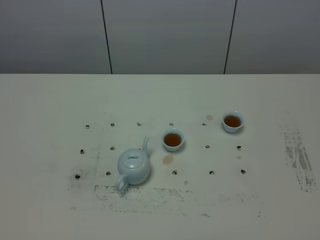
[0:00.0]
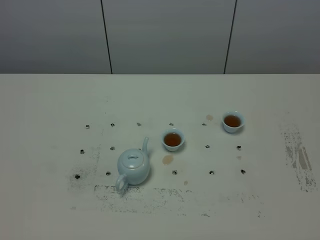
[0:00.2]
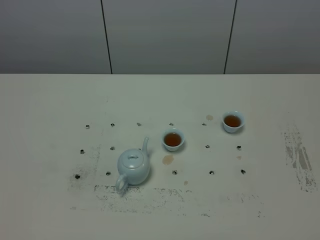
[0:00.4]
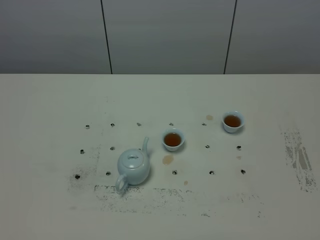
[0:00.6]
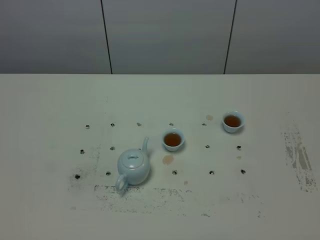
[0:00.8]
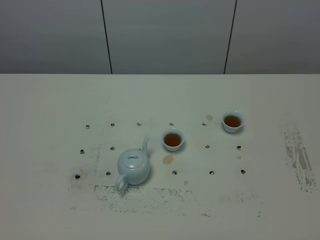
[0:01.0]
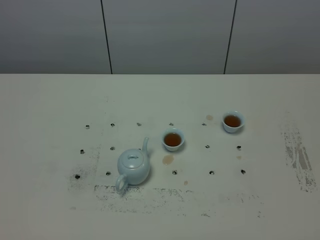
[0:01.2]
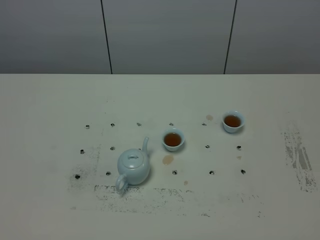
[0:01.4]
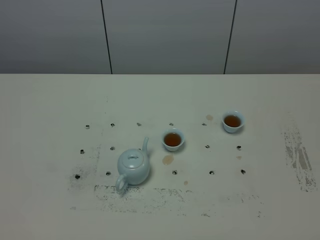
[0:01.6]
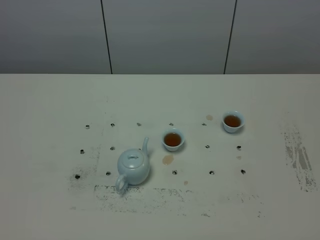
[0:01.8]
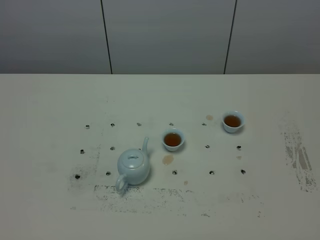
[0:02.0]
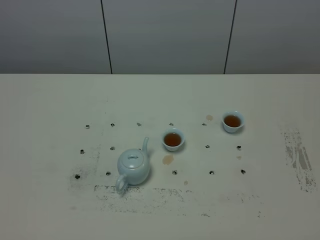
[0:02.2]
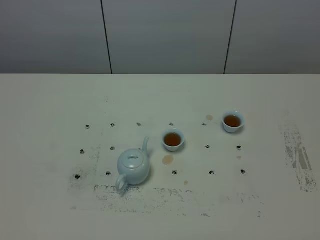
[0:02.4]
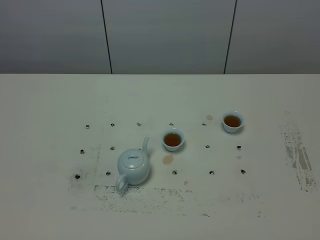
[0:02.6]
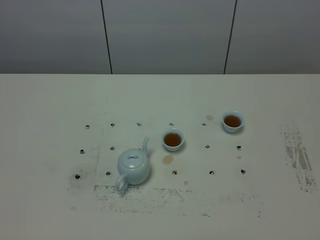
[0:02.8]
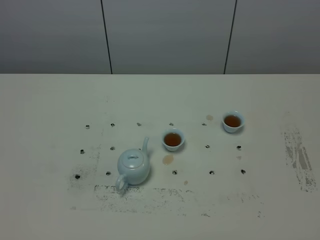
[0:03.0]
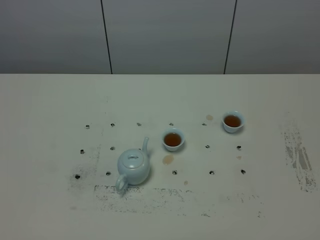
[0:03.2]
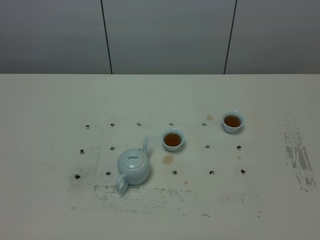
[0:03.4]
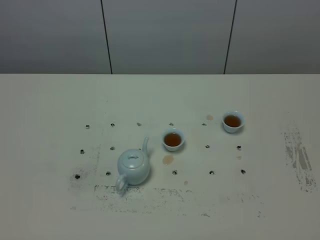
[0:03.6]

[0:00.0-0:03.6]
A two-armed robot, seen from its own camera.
Task of the whole recording: grasp the blue porcelain teapot and pour the tea into the two blue porcelain teacups one by one, put the blue porcelain teapot back in its original place.
0:00.0 to 0:03.6: Both grippers stay put.

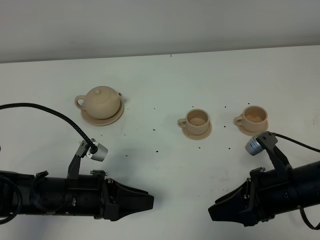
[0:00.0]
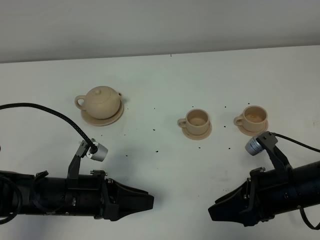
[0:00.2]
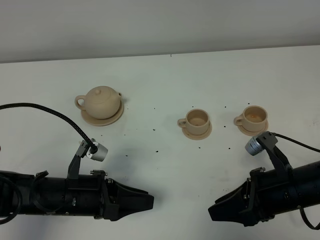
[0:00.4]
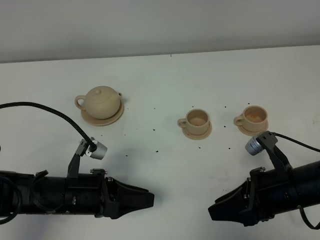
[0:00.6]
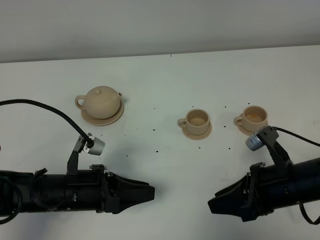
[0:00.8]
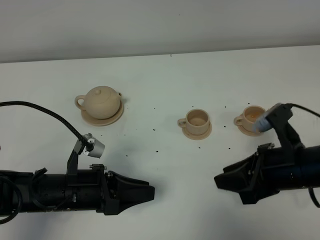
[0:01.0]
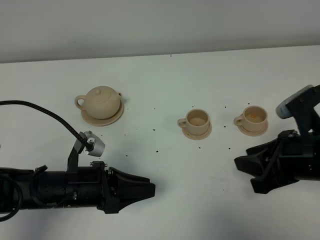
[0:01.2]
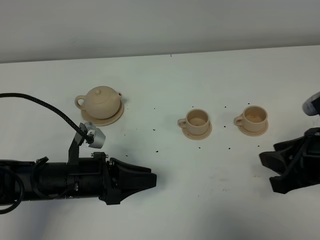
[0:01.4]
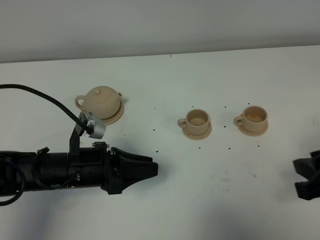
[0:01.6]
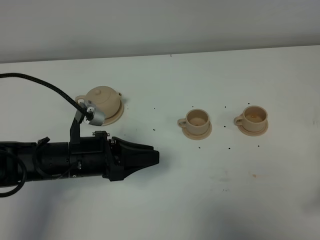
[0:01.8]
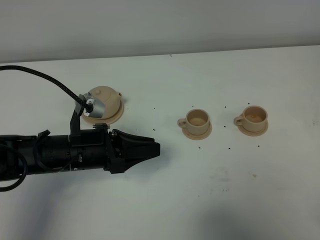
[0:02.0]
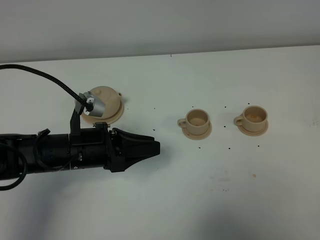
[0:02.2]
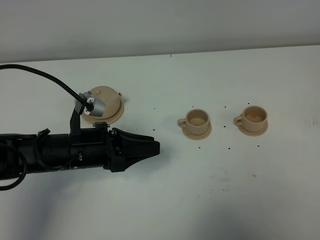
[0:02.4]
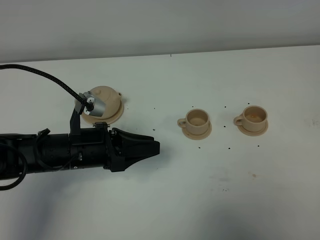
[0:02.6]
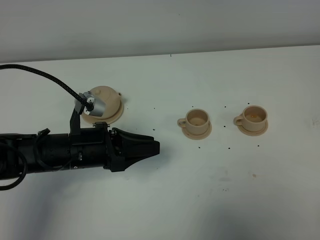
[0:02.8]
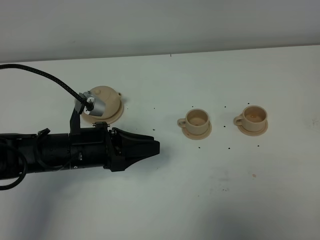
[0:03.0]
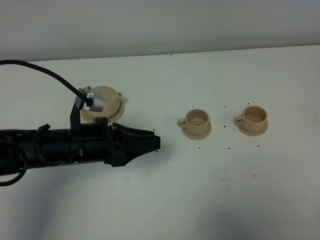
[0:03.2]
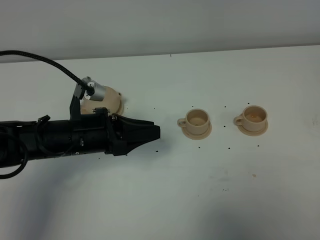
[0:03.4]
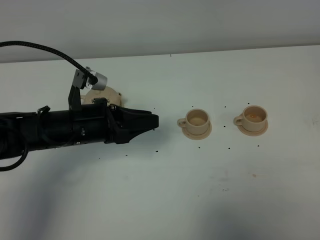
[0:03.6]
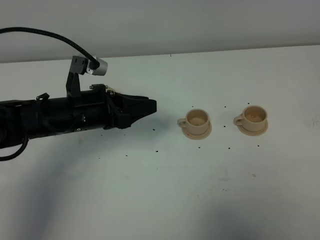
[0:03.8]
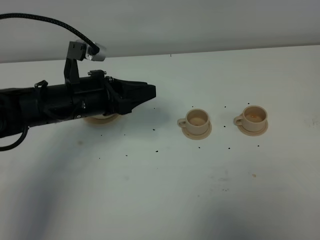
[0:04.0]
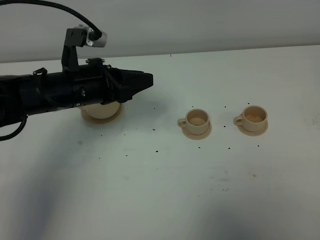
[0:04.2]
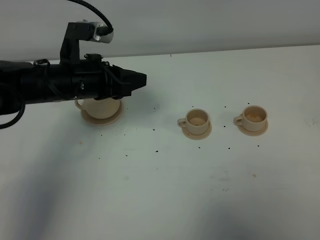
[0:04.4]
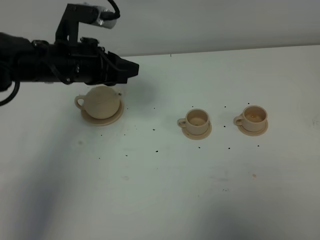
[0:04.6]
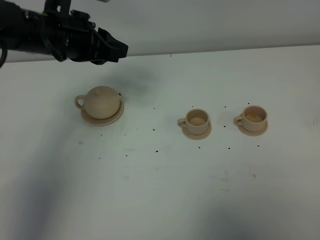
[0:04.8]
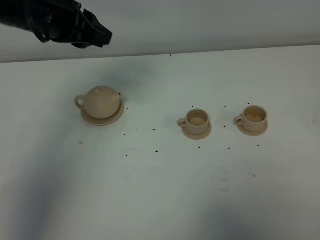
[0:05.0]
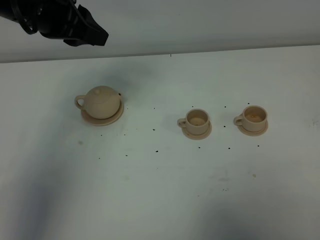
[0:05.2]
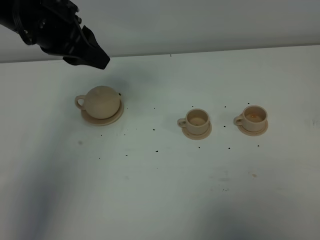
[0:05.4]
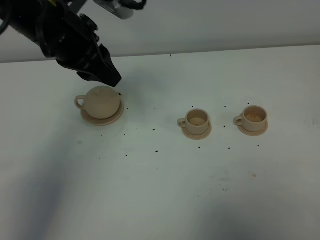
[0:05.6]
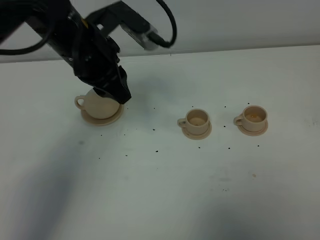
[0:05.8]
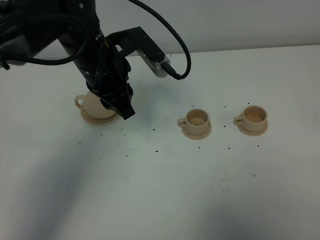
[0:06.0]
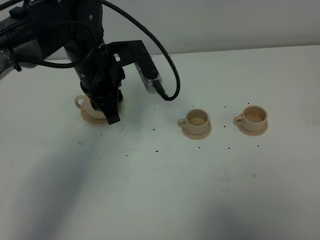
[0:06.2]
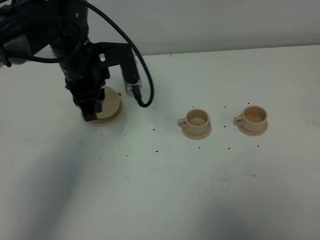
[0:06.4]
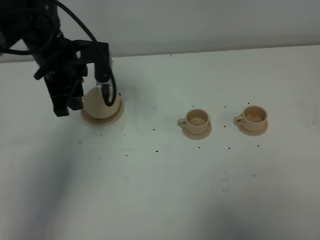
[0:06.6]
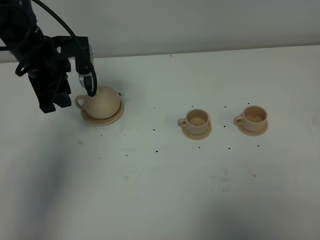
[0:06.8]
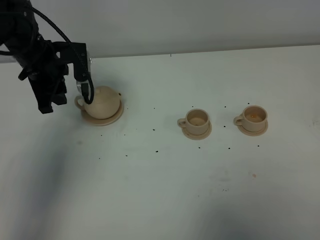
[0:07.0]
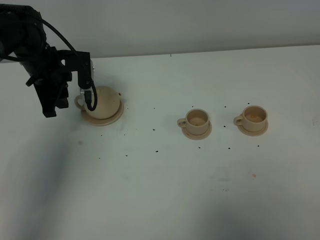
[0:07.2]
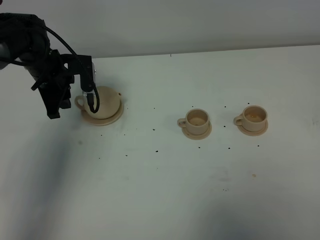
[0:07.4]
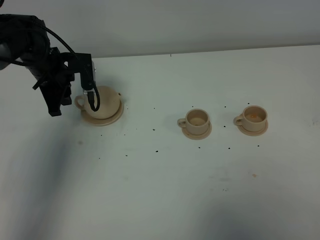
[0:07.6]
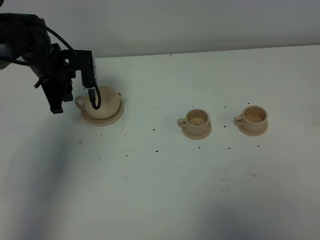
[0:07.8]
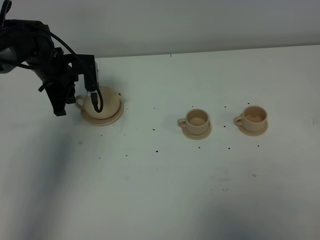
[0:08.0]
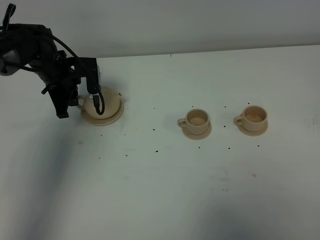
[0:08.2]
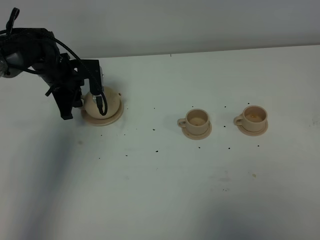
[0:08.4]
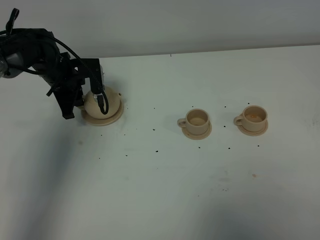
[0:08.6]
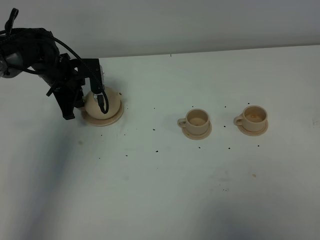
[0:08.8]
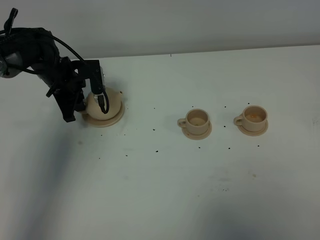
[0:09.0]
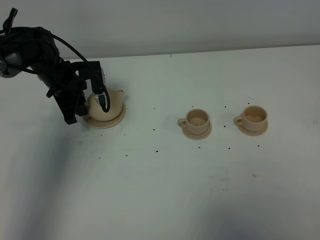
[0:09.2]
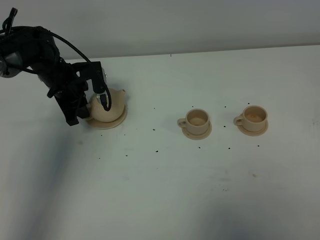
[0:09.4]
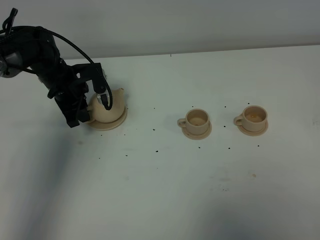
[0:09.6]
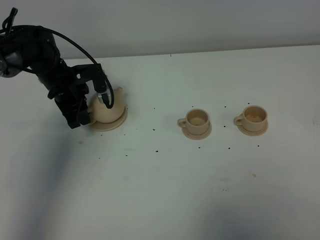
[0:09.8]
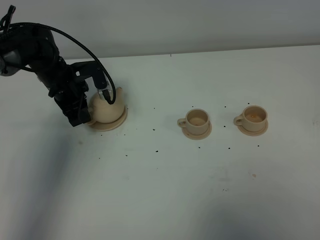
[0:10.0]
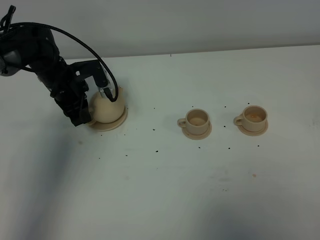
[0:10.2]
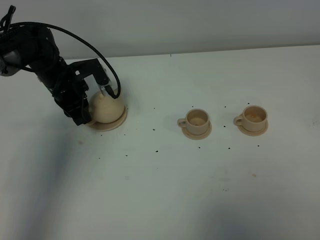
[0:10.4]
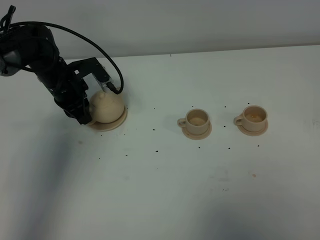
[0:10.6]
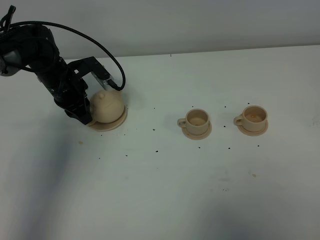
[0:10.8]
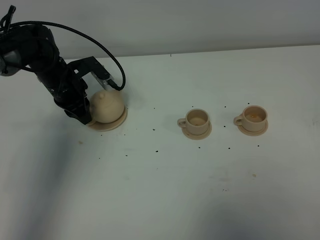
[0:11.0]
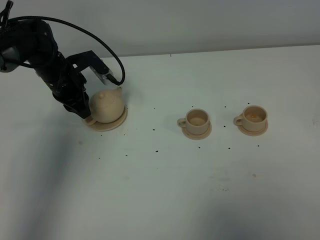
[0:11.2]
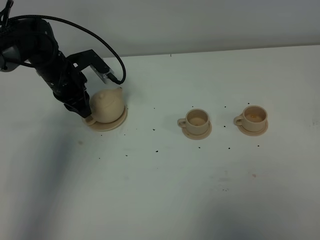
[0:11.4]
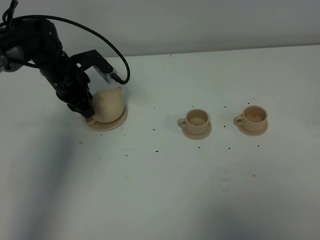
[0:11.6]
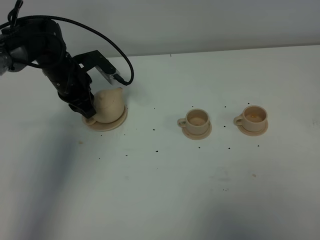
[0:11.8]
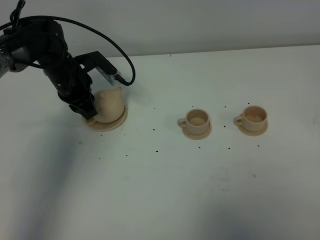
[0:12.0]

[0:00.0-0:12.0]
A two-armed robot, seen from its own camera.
Task of the whole recording: grasp the brown teapot and pour the tea into the two brown teacups one by one, put the brown teapot back in its original place.
0:00.0 to 0:01.6: The right gripper travels upward and to the right by some 15 cm.
0:01.6 to 0:03.0: The right gripper goes some 15 cm backward.
0:03.0 to 0:04.4: The left gripper shifts roughly 10 cm forward and upward.
0:04.4 to 0:06.0: The left gripper is displaced to the right by approximately 5 cm, and travels upward and back again, roughly 15 cm each way.
0:06.0 to 0:07.6: The left gripper shifts some 20 cm to the left, forward and downward.
0:07.6 to 0:09.0: The grippers make only small movements.
0:10.4 to 0:12.0: The grippers stay close to where they were, moving slightly.

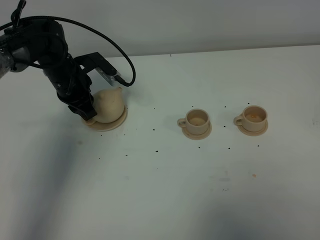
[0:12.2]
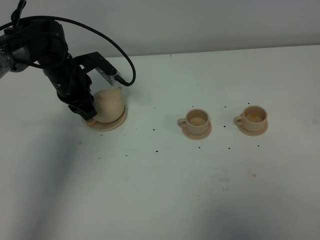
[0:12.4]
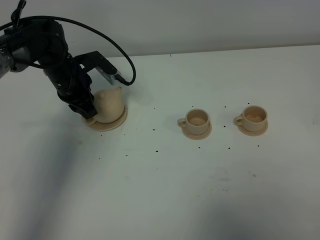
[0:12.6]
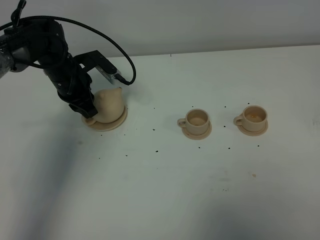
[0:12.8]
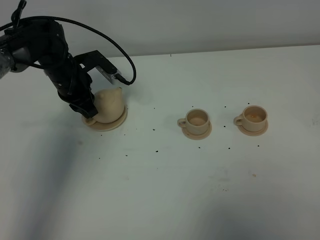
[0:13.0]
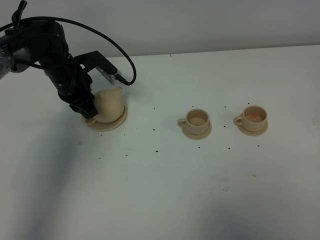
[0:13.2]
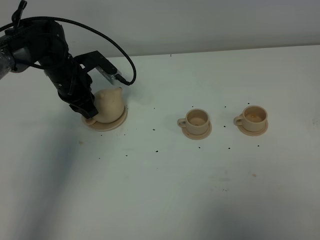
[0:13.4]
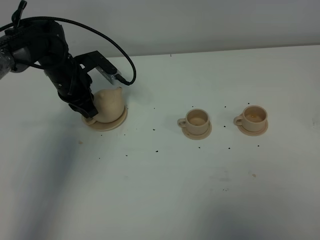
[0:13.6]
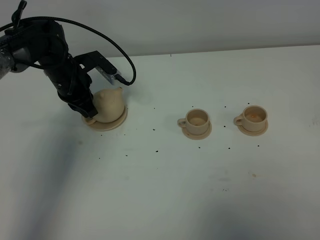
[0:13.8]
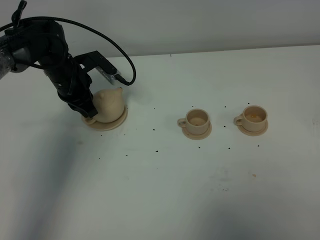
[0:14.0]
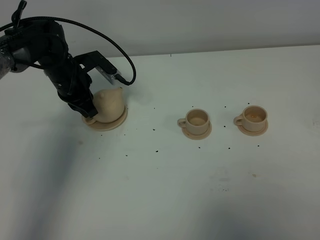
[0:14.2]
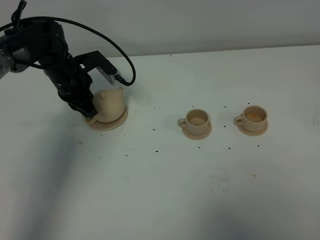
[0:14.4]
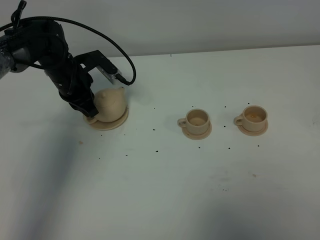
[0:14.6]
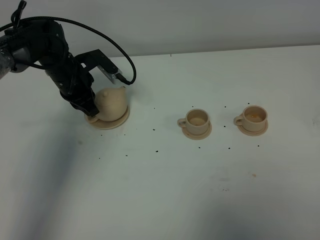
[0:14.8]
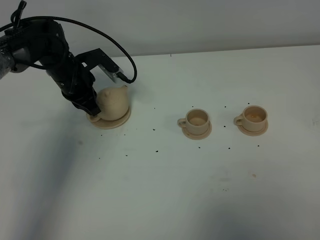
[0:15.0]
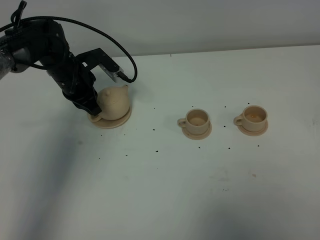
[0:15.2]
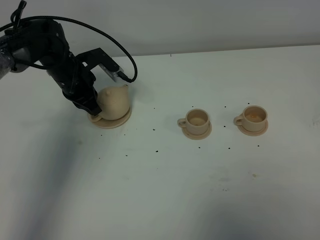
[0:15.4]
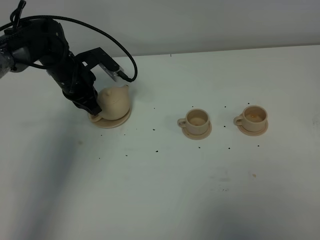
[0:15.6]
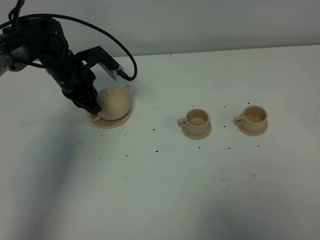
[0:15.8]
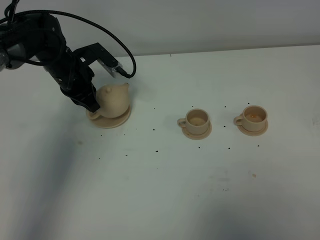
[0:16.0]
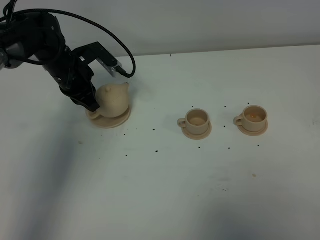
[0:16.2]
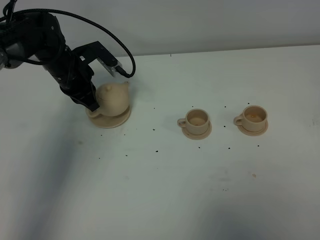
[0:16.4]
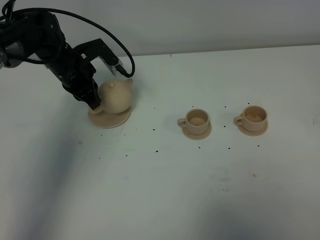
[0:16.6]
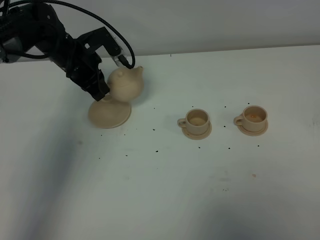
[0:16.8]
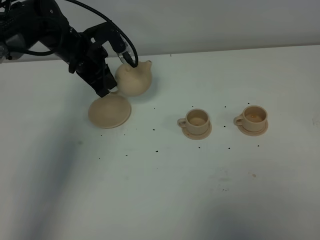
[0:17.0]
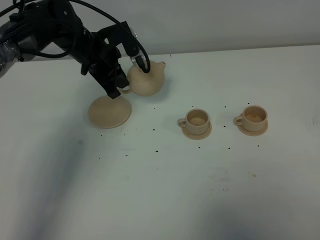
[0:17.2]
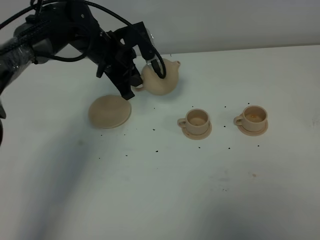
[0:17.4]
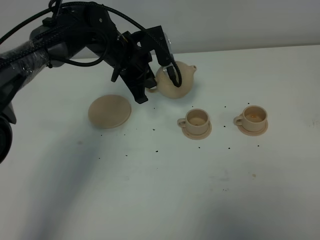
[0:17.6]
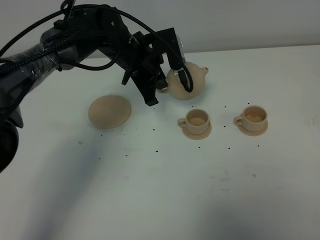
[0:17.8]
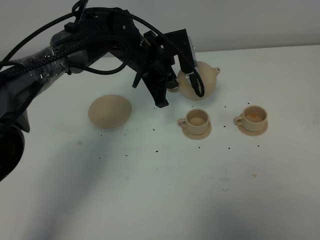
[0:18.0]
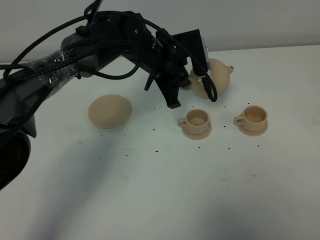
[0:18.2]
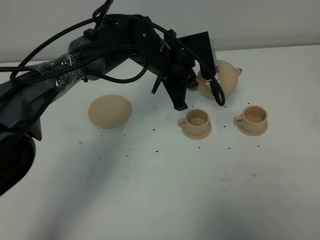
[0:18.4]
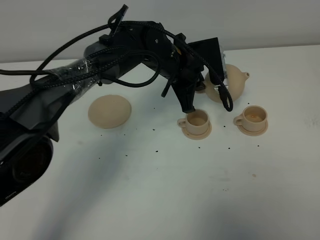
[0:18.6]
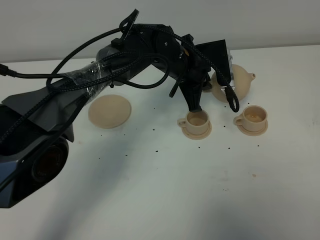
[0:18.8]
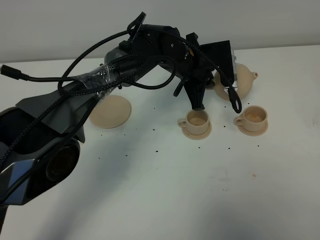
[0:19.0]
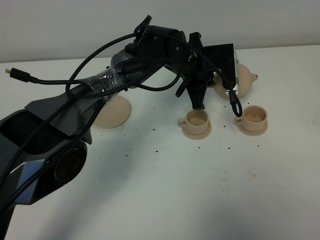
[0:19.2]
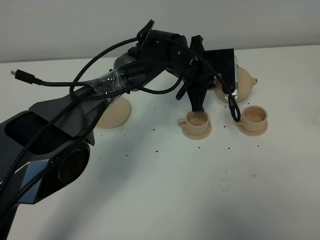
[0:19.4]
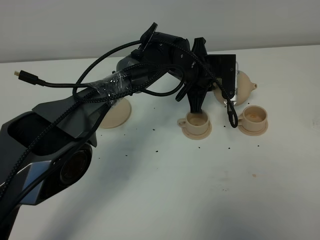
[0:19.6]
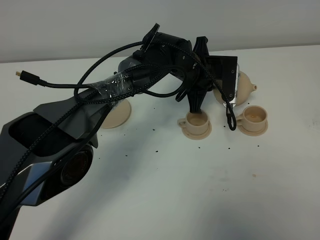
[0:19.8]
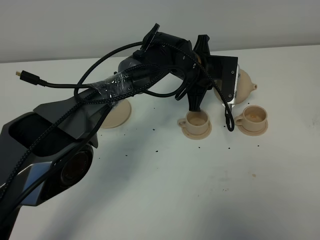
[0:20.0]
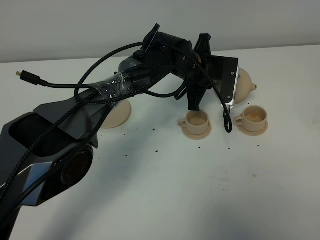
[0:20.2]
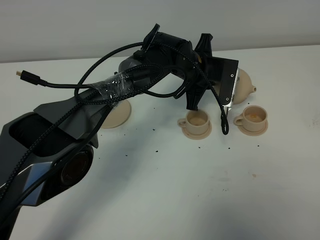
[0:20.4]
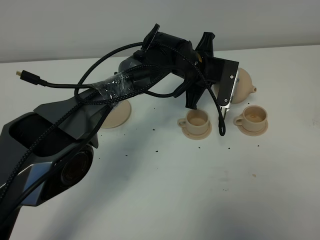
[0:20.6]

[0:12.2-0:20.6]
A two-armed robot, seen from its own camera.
Task of the whole recording: grasp the brown teapot and pour the tea into the two brown teacups one by one, put the brown teapot back in its original place.
Step, 0:12.2 to 0:16.0: Pick up the teapot with the left gripper.
0:12.2 to 0:15.0: Both grippers stay about where they are.
0:15.0 to 0:16.4: The grippers stay close to where they were, moving slightly.
0:16.4 to 0:17.8: The left gripper heads to the right, covering about 15 cm.
0:17.8 to 0:19.2: The left gripper shifts some 10 cm to the right.
